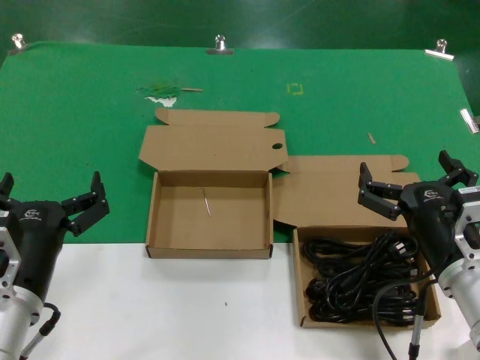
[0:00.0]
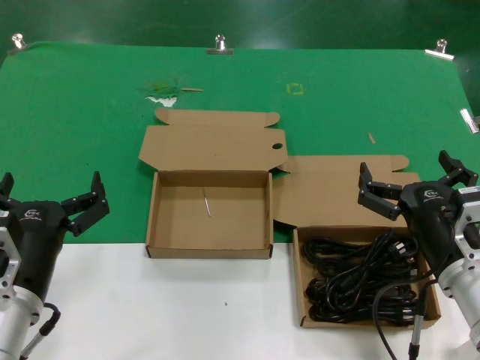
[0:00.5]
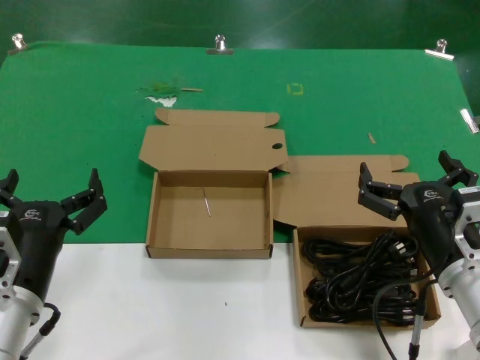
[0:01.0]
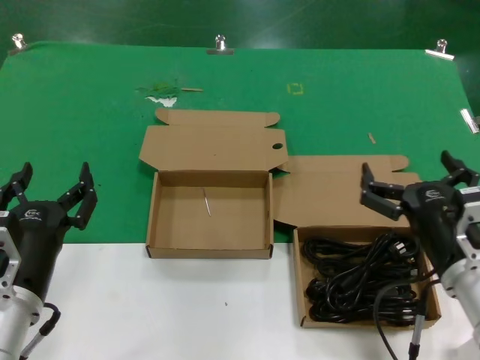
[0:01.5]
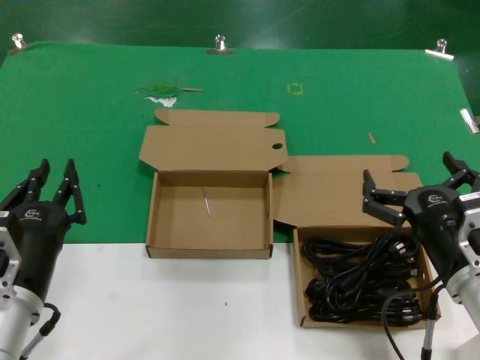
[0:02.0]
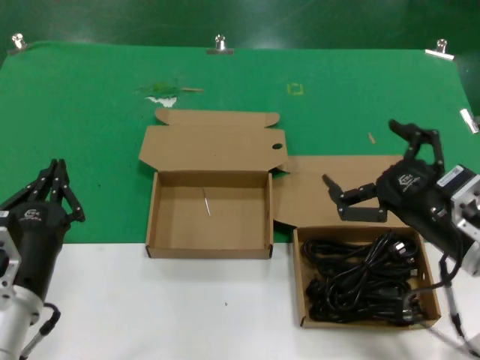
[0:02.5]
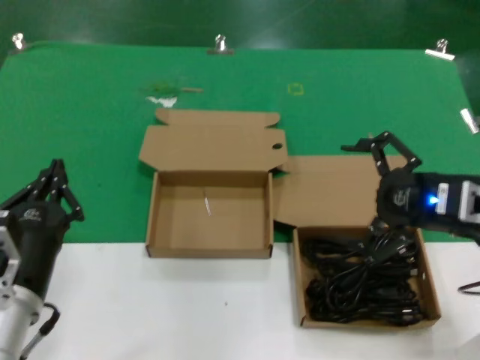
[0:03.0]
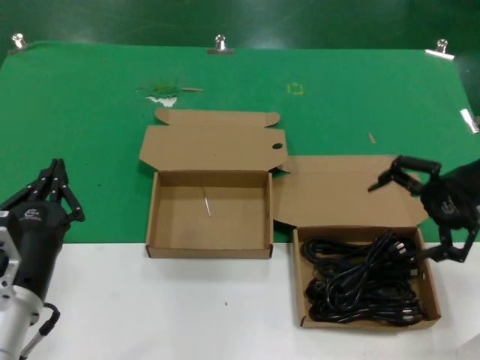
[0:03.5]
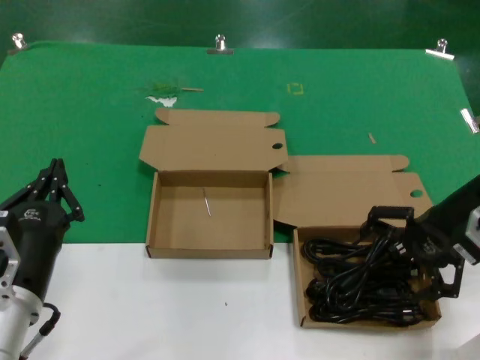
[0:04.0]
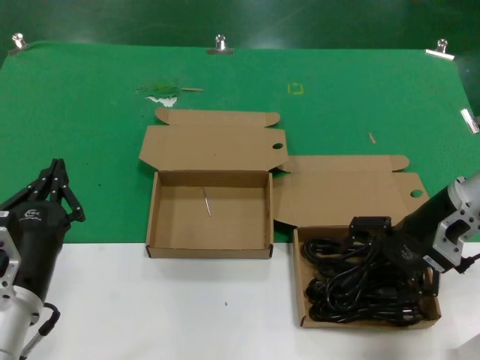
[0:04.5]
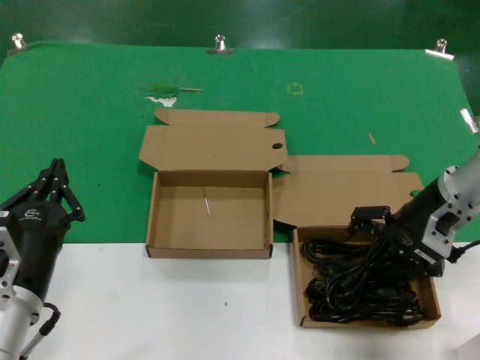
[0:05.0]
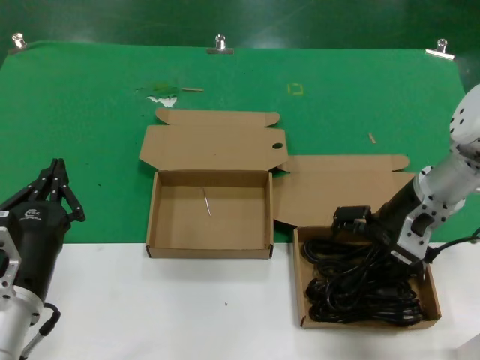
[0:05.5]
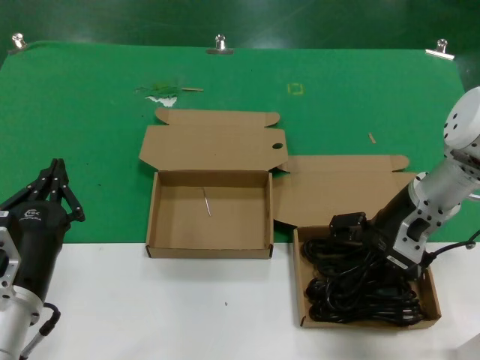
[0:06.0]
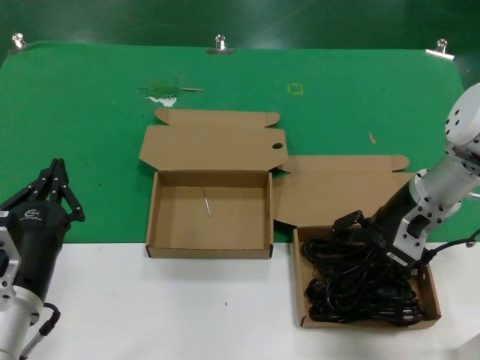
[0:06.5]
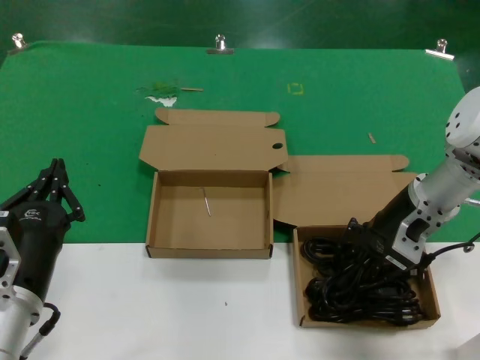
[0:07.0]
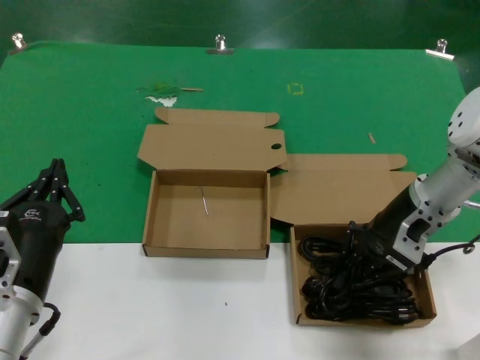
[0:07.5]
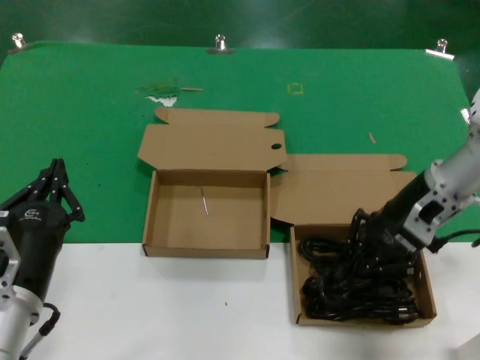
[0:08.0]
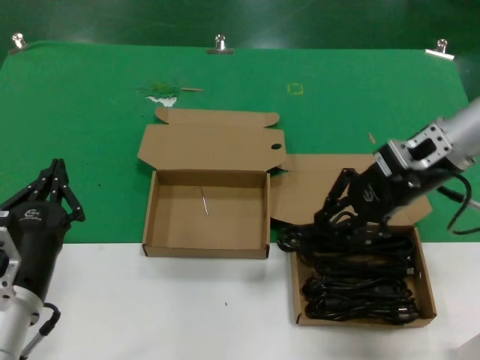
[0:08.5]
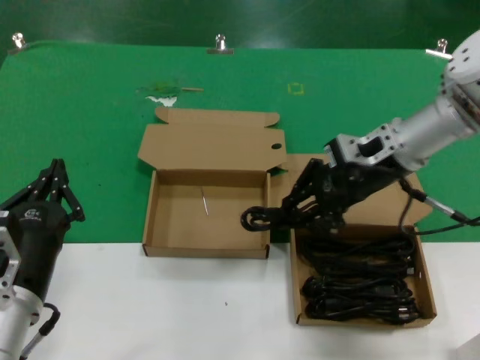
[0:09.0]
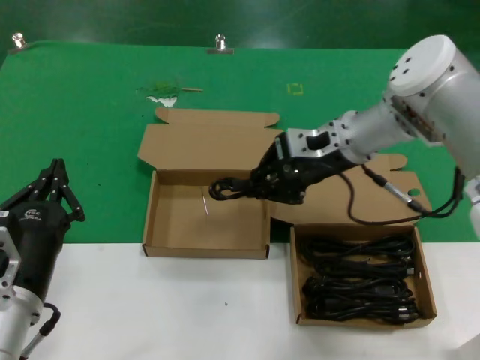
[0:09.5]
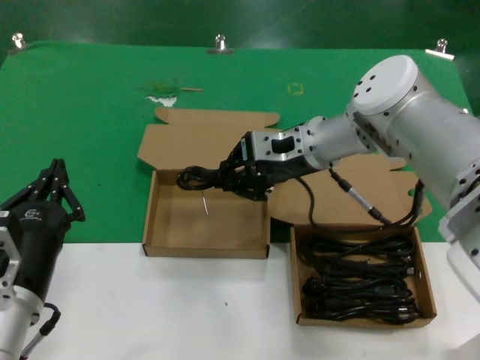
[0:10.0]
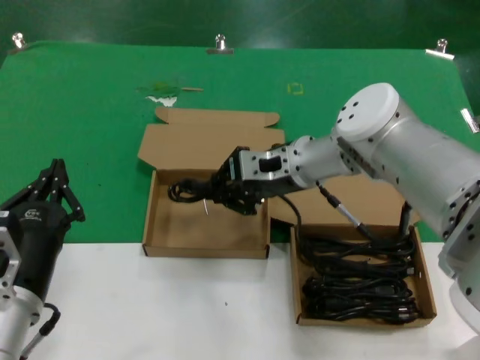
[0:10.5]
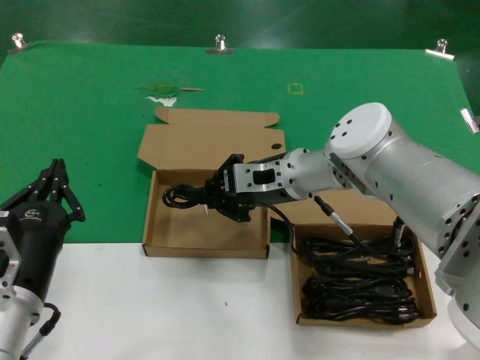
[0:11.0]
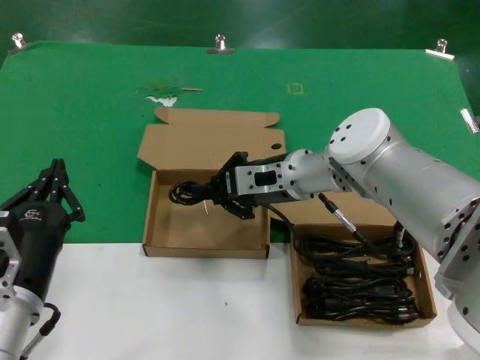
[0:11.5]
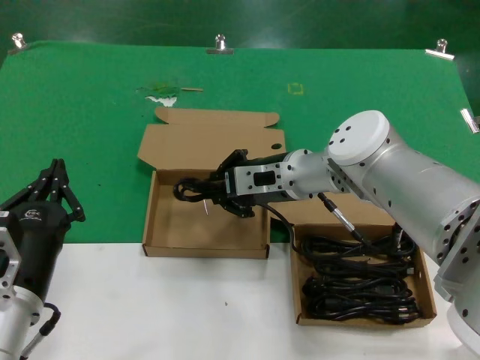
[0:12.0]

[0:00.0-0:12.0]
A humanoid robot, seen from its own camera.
Task of the whole recording: take the parts from the box containing them and put them into an empty box.
Step, 0:00.0 to 0:07.0: Grasp the data cable.
0:00.0 to 0:02.0: Both hands stay put.
0:02.0 to 0:04.0: The right hand goes about 25 cm forward, upward and to the right.
0:04.0 to 0:06.0: The right hand travels to the left and downward by roughly 10 cm.
0:06.0 to 0:08.0: The hands stay close to where they were, moving slightly.
0:08.0 to 0:10.0: The right hand is displaced to the left by approximately 15 cm.
0:10.0 to 0:12.0: The right hand is displaced downward by about 5 cm.

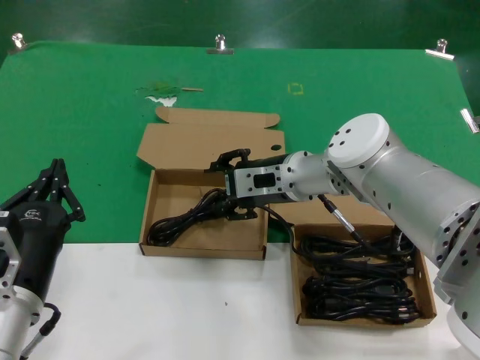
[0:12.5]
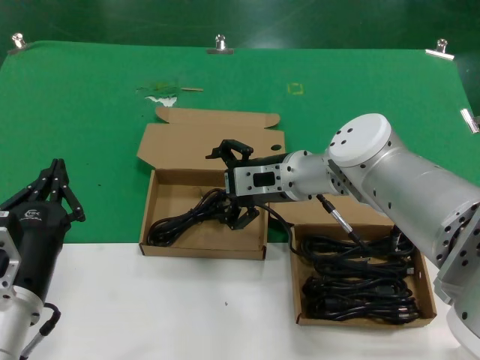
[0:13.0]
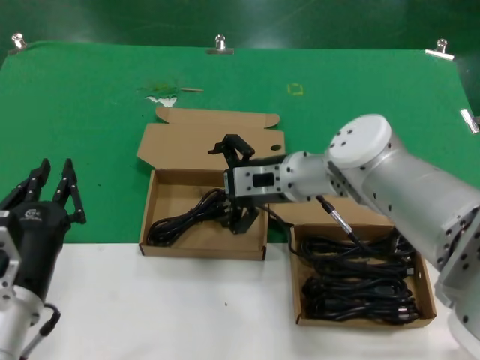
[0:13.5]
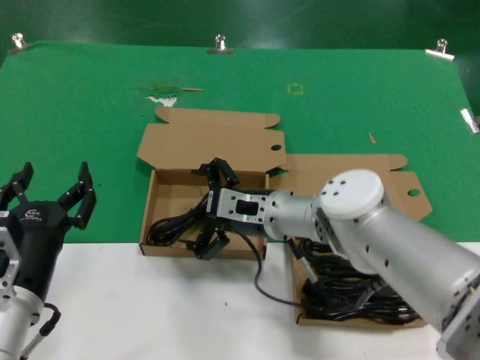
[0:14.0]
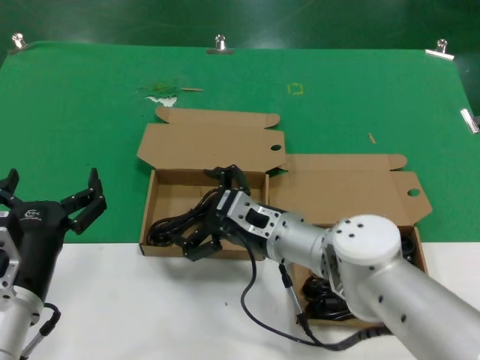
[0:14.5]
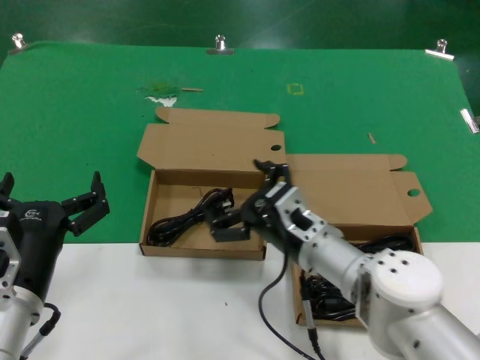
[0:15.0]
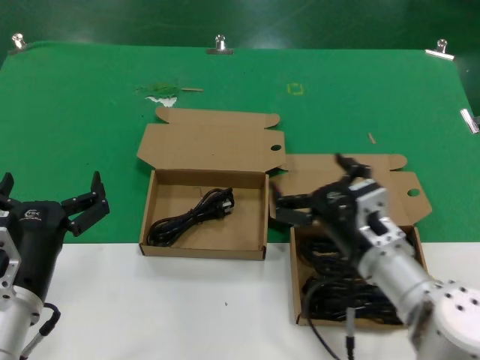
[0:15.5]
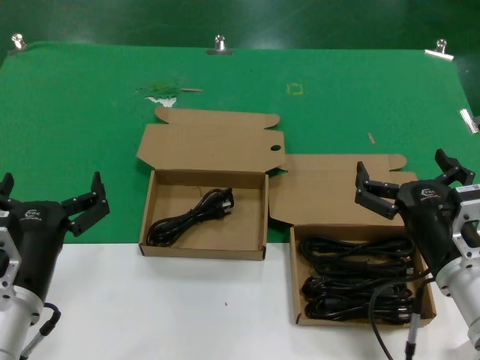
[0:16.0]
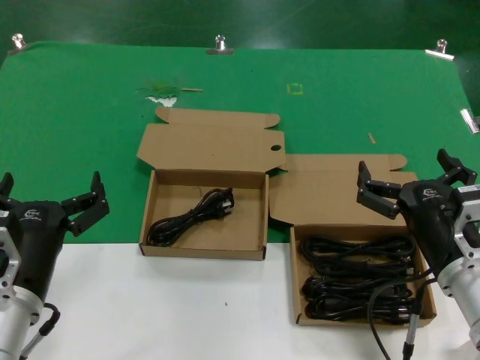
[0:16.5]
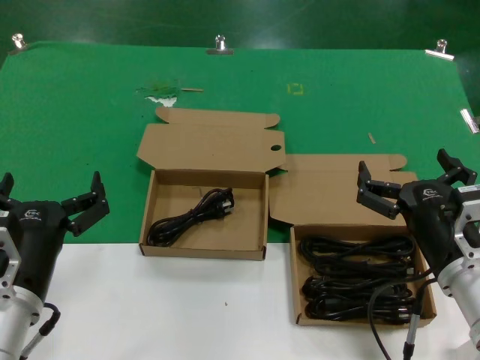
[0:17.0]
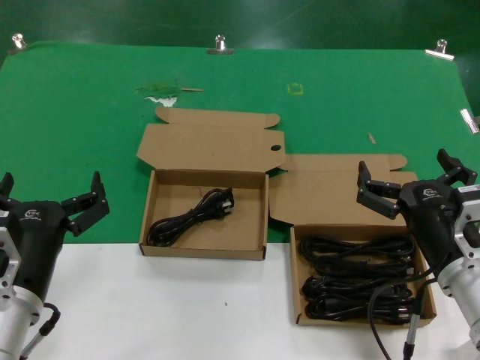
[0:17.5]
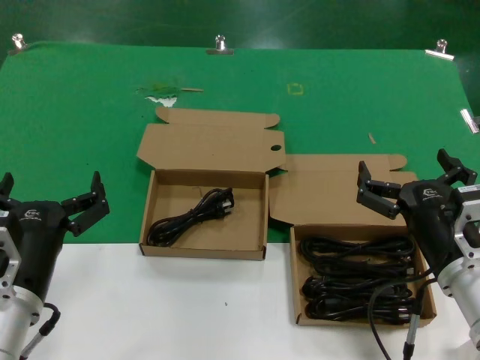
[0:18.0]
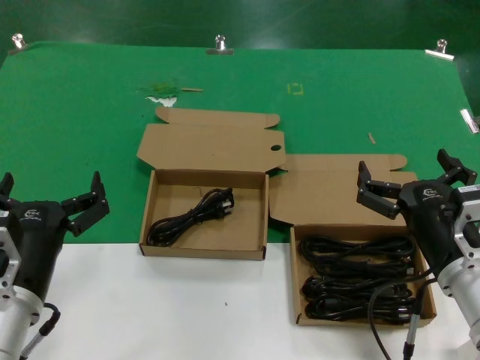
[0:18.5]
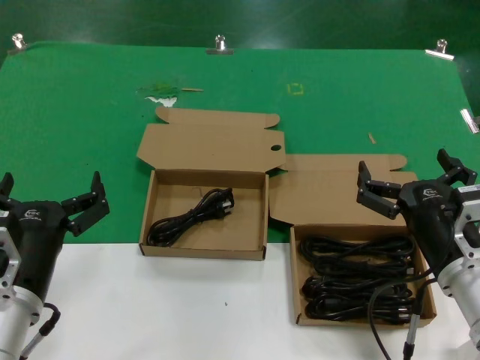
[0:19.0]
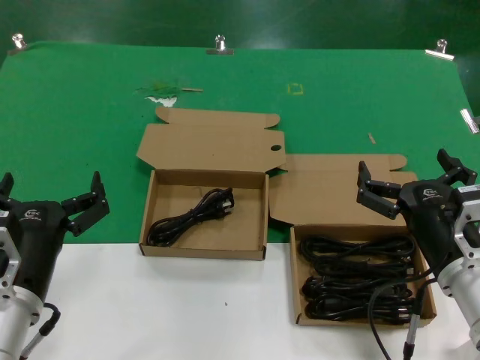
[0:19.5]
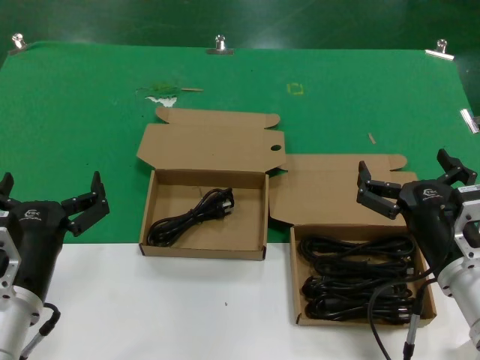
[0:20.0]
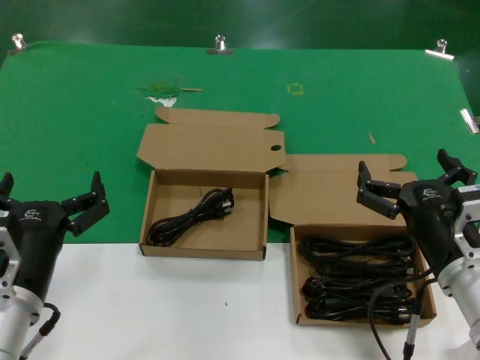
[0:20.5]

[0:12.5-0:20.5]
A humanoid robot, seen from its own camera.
Task of the whole recording: take the parts from the box containing them and put them into an empty box.
0:12.5 to 0:14.5: The right hand shifts approximately 10 cm backward and downward.
0:14.5 to 0:16.5: The right hand heads to the right and backward, covering about 20 cm.
0:16.5 to 0:20.5: Neither hand changes place.
